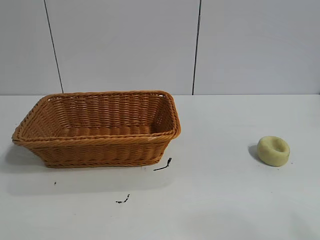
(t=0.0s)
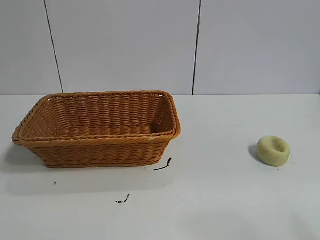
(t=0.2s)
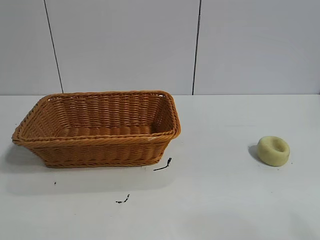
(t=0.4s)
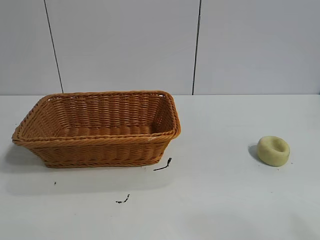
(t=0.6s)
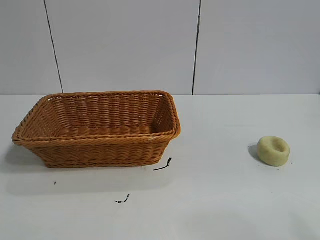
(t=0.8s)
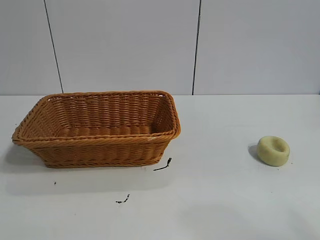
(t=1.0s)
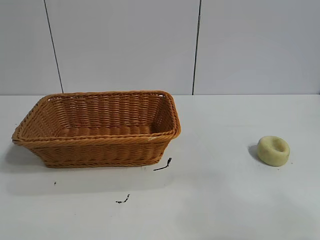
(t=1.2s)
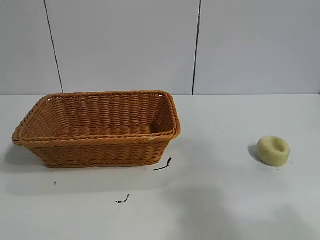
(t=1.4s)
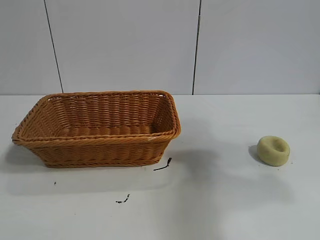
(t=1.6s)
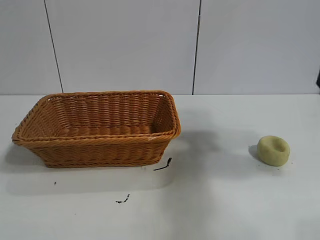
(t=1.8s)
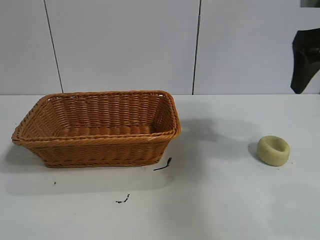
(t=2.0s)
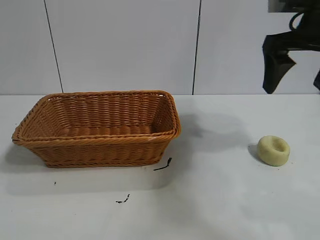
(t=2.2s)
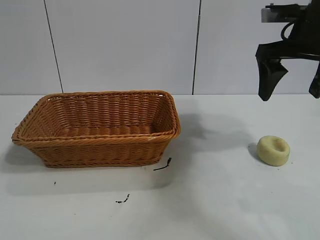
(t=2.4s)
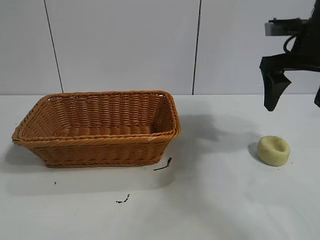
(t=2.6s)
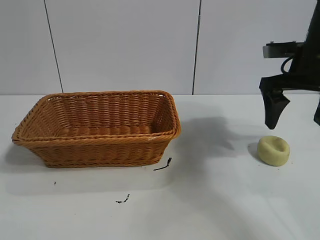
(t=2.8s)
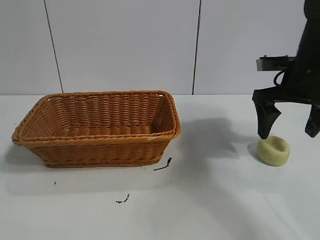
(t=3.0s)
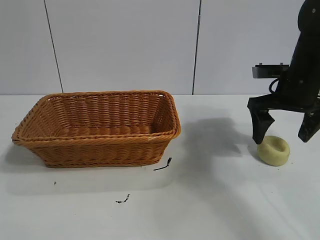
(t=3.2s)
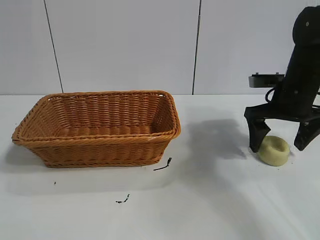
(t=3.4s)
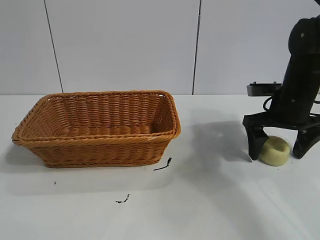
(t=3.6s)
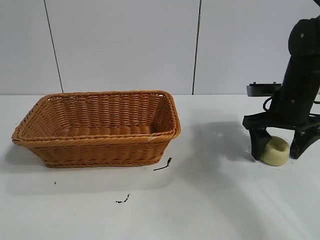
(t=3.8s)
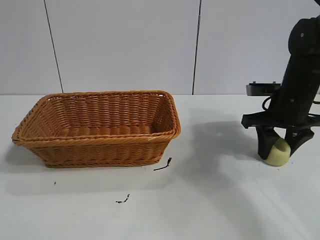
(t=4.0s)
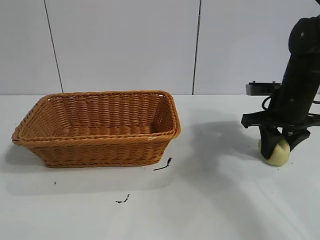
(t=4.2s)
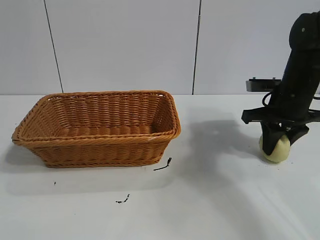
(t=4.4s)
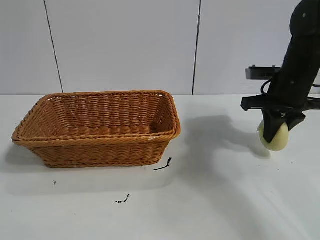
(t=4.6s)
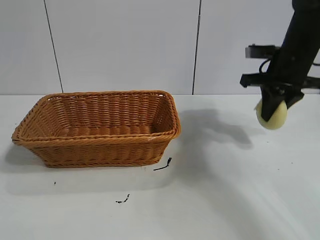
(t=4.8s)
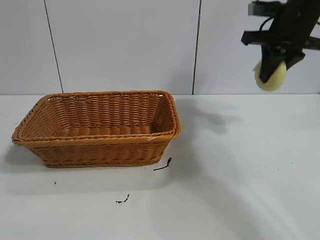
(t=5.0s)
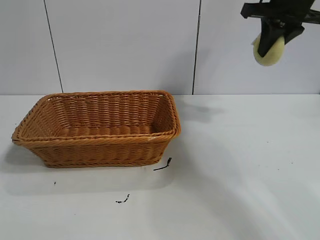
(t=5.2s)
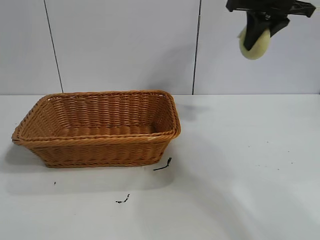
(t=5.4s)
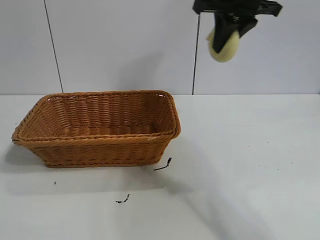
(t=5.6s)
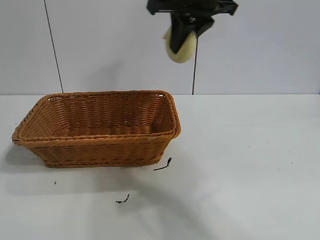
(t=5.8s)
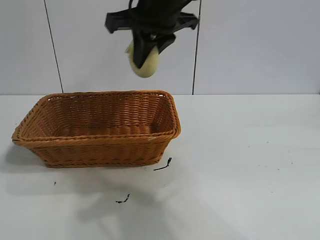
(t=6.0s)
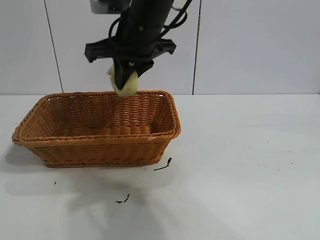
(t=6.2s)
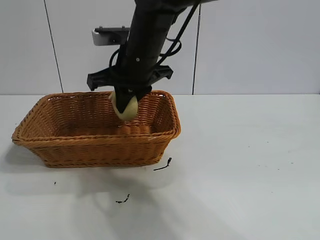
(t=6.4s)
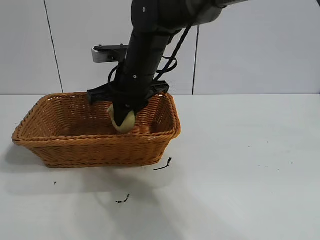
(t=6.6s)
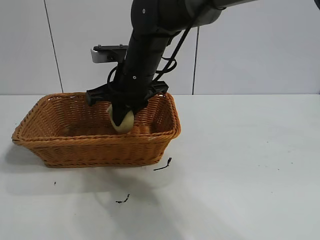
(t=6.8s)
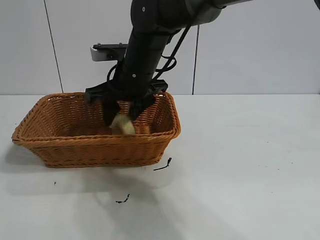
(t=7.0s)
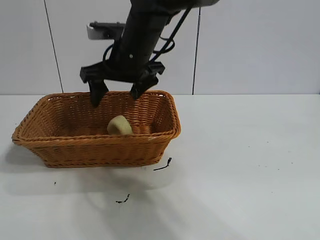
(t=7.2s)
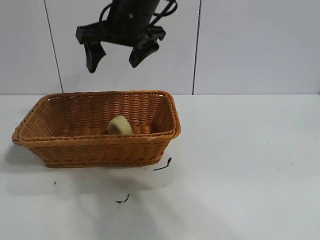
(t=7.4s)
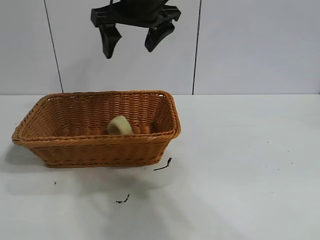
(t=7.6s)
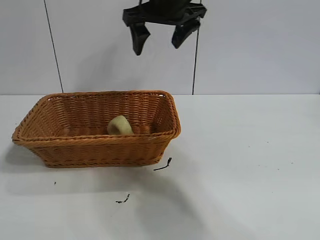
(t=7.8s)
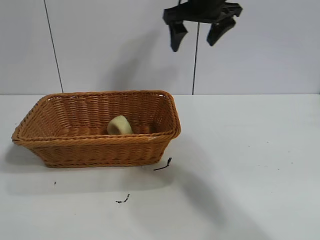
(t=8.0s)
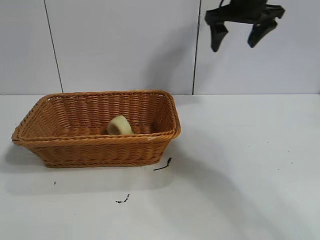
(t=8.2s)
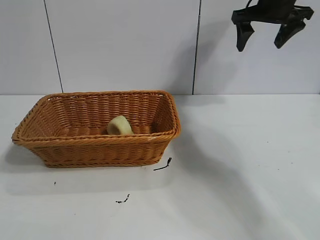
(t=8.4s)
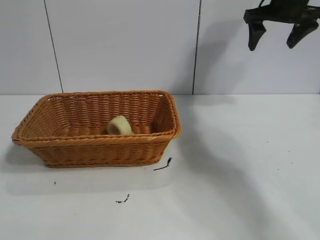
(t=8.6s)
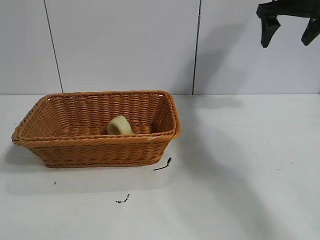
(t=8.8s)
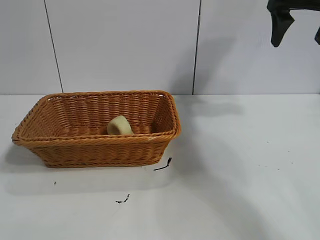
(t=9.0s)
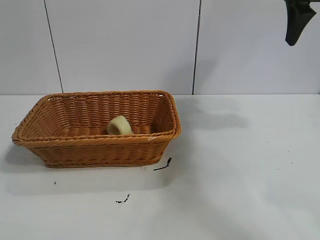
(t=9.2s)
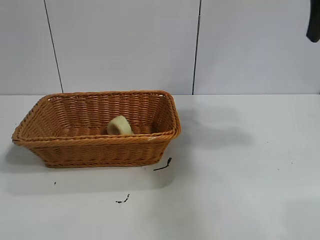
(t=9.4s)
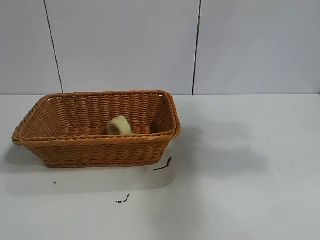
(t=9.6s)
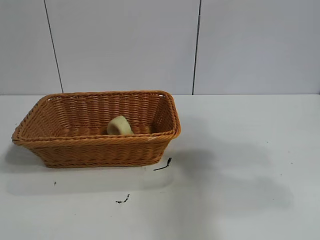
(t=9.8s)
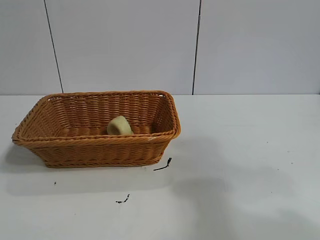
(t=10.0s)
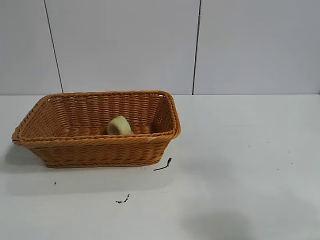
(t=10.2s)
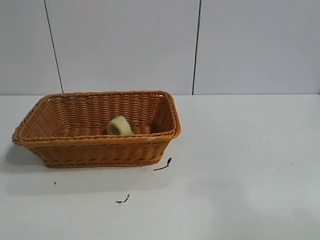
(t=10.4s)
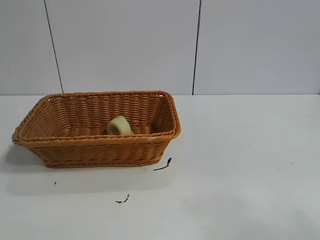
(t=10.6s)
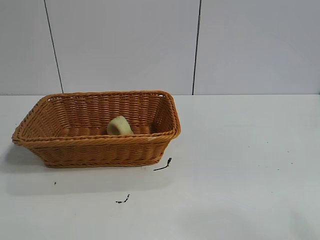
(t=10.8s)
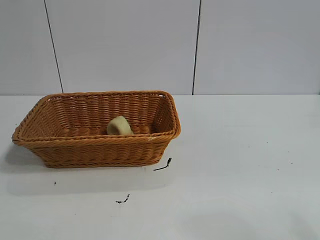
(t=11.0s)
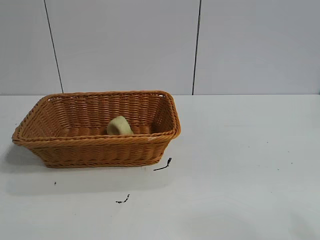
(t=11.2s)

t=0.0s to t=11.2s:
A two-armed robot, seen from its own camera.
Task of the whole recording: pick up the egg yolk pastry and put it into the basket.
Step, t=0.8s to t=4.0s: Grasp egg yolk pastry with right gripper.
Step, t=4.2s to t=7.0s: Place the egg yolk pastry in the basket with right gripper.

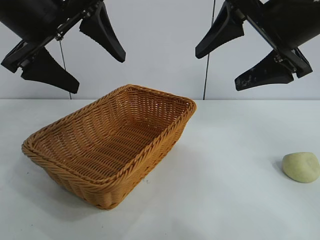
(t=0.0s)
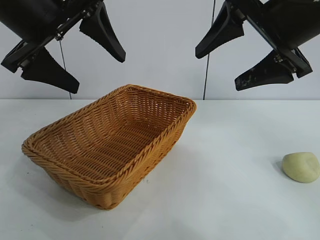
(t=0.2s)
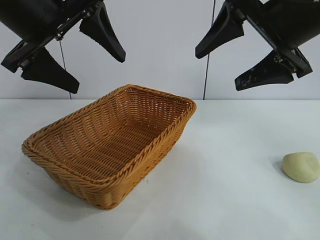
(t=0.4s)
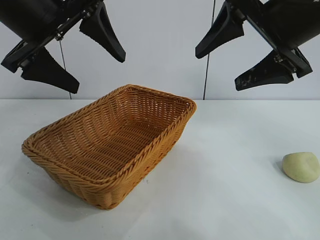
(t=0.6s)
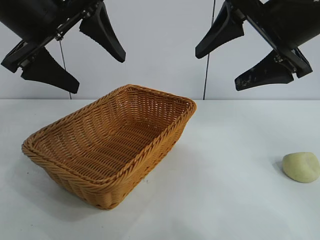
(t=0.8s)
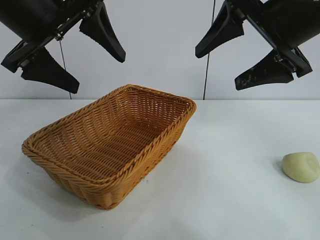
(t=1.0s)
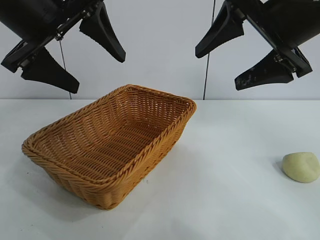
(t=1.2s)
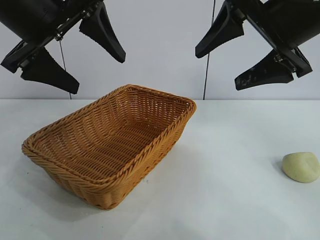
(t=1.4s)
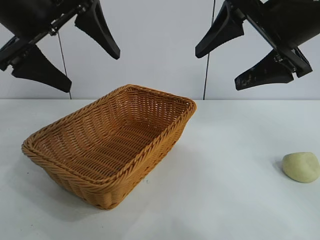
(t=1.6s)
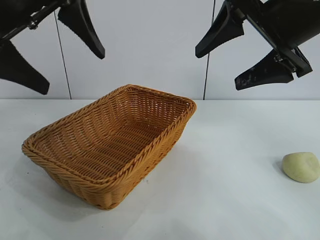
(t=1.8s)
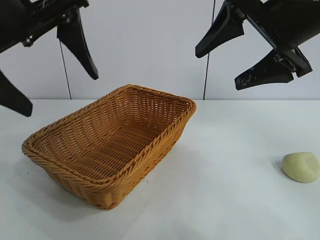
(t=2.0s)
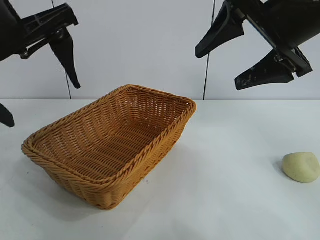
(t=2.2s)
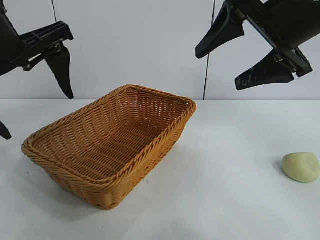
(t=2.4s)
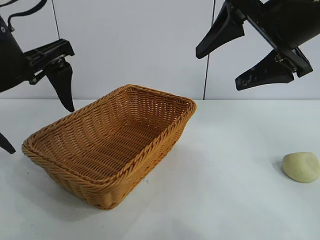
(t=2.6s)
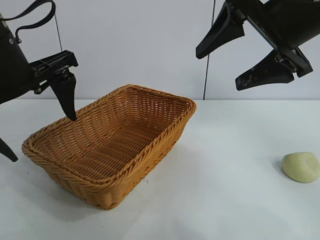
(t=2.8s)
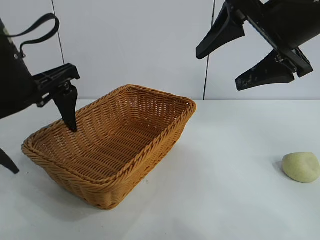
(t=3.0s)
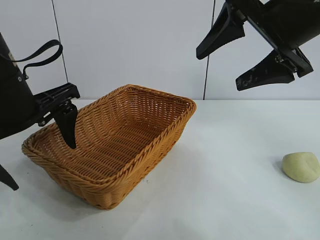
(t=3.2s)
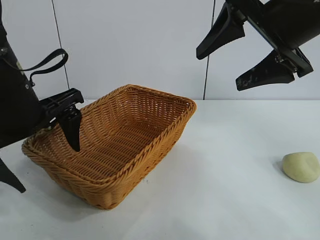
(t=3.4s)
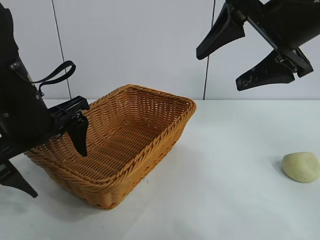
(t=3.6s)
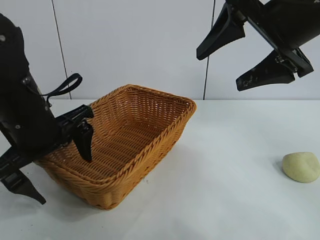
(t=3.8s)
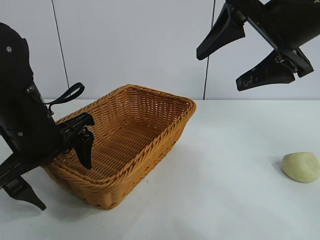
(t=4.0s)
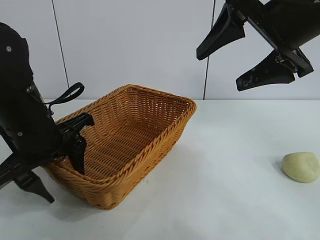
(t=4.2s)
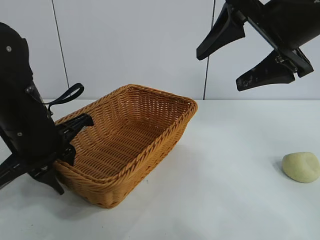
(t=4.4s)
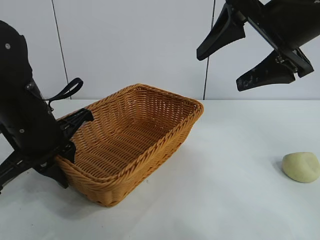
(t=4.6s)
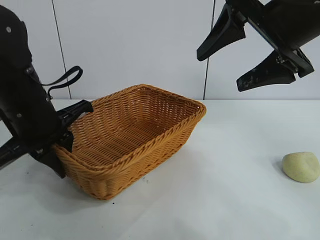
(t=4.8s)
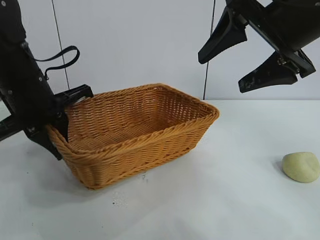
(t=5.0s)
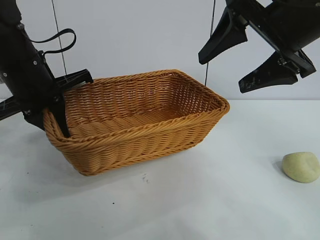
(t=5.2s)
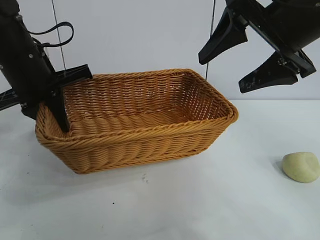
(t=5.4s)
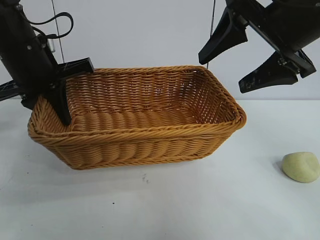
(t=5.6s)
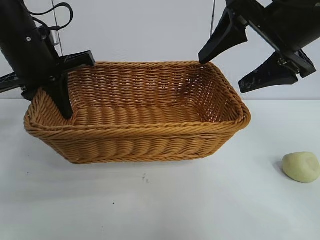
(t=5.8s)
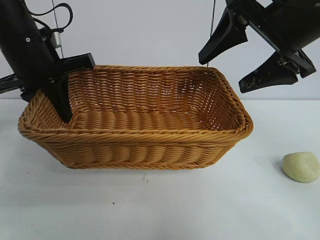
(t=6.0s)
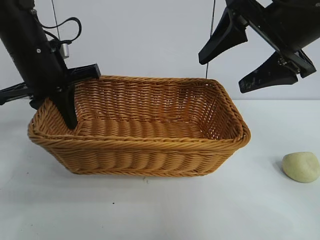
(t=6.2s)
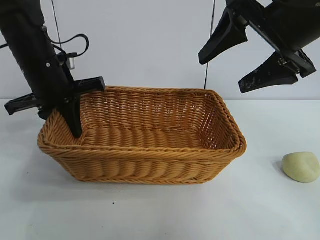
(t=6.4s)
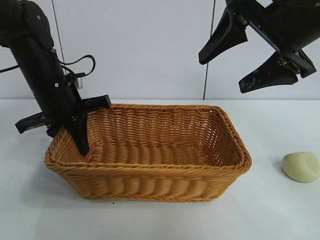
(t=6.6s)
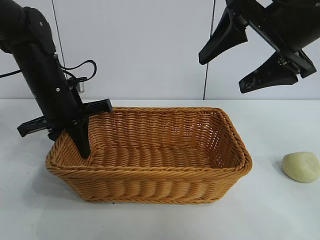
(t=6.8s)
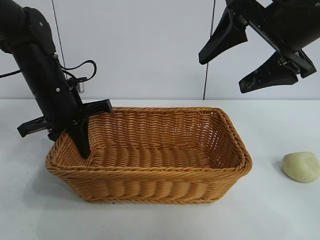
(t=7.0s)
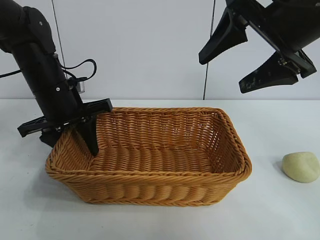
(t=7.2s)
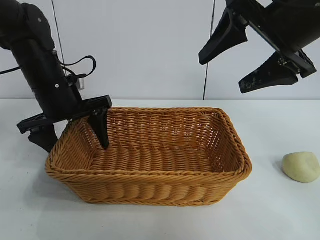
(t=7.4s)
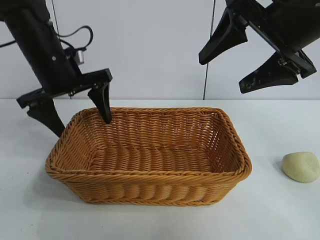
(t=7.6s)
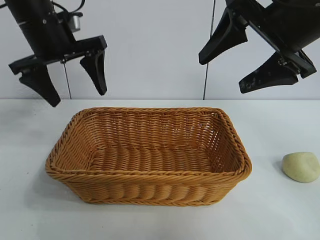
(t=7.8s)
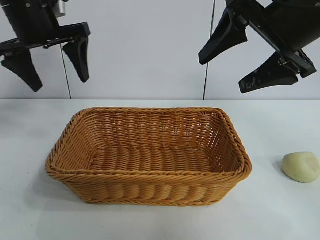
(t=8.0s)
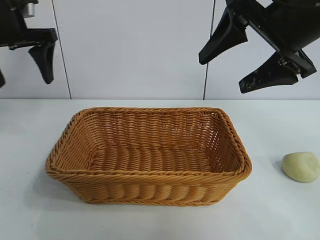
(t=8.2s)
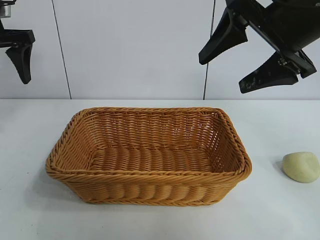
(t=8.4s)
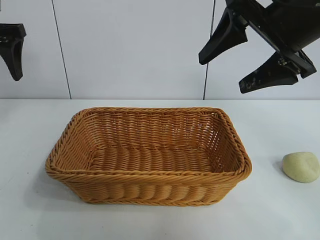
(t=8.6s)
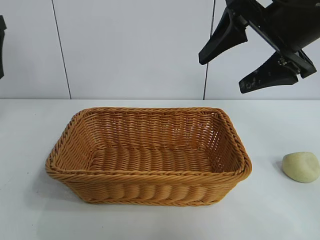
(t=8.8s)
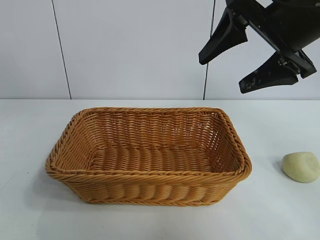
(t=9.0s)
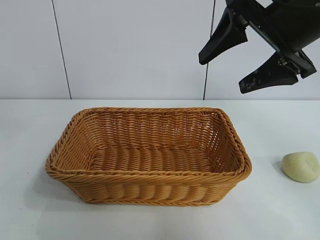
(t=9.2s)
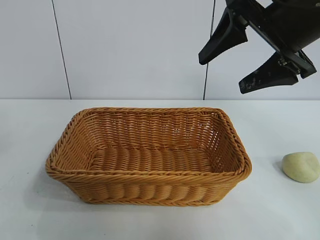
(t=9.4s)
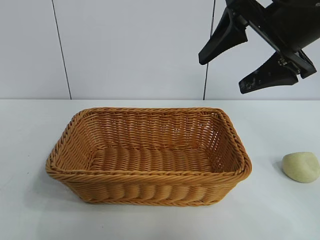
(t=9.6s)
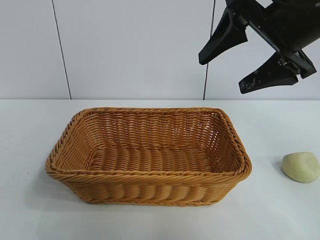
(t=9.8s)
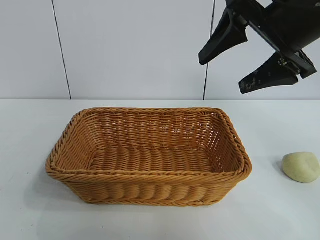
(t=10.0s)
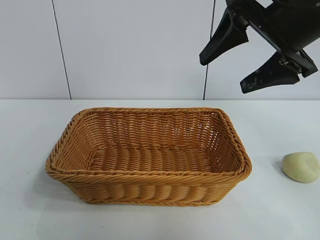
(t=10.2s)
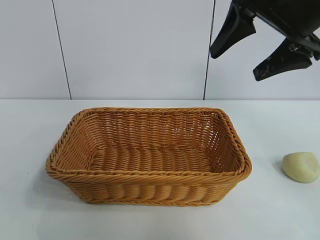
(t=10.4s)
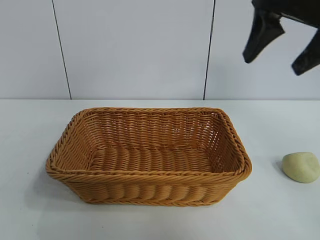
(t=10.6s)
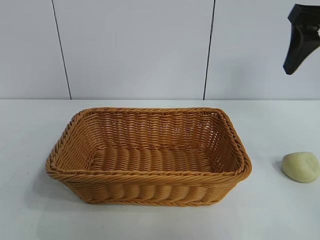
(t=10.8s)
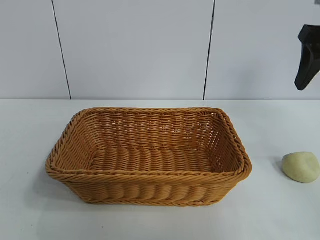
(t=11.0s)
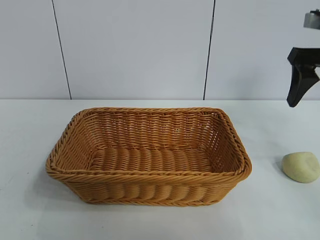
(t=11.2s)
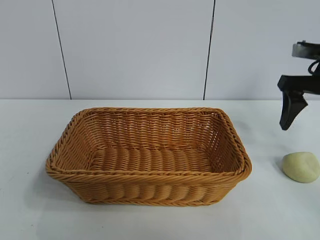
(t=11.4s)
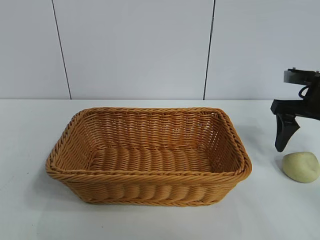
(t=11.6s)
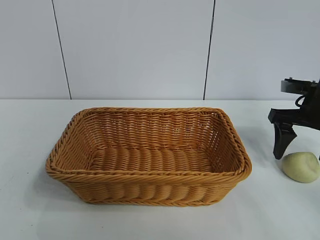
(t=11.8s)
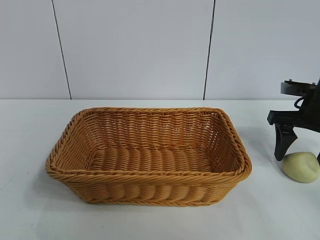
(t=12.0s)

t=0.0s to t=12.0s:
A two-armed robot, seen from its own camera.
Task of the whole recording: pick up the egg yolk pastry and put it into the basket.
Step, t=1.4s to t=4.4s: Grasp the basket with left gripper.
Step, t=4.8s to t=7.4s: Place the basket in the center of view with left gripper.
